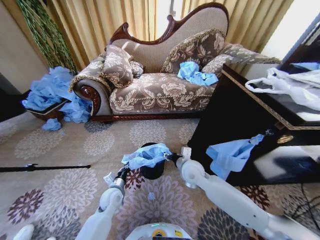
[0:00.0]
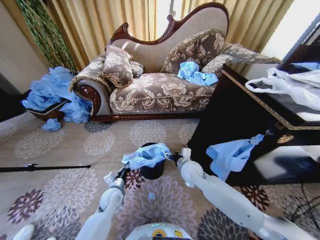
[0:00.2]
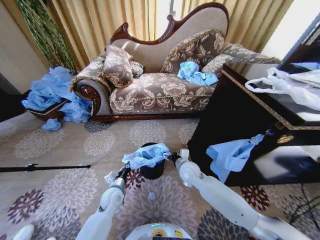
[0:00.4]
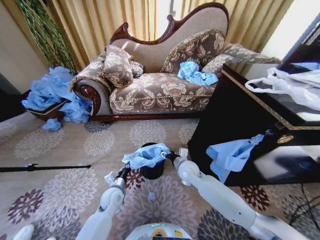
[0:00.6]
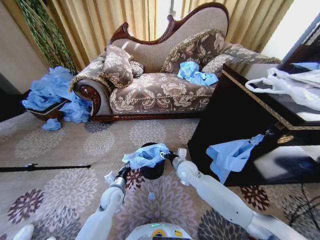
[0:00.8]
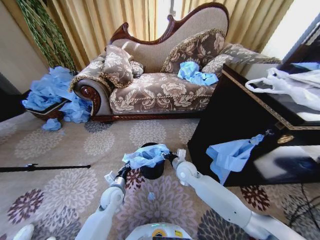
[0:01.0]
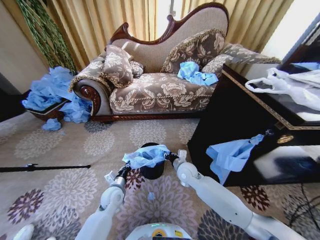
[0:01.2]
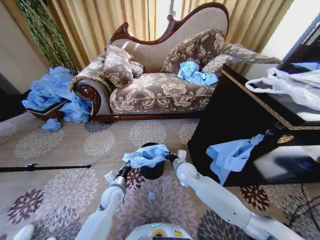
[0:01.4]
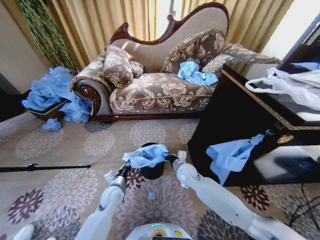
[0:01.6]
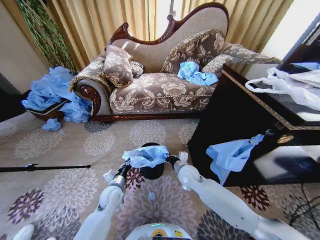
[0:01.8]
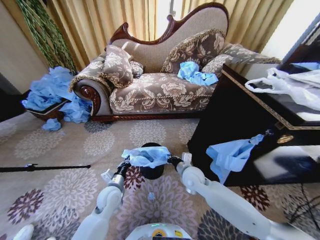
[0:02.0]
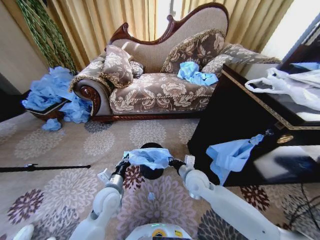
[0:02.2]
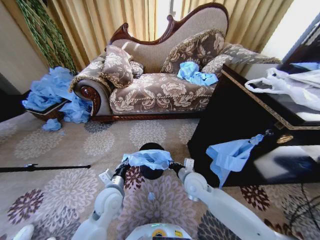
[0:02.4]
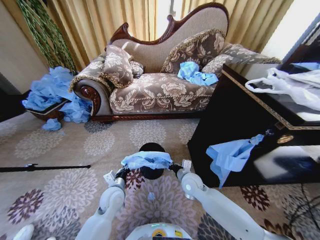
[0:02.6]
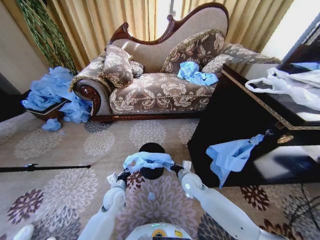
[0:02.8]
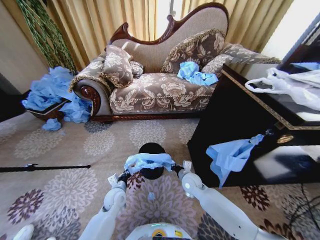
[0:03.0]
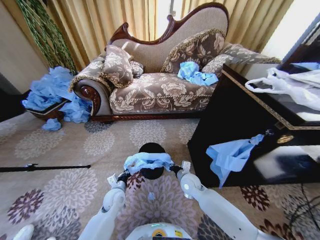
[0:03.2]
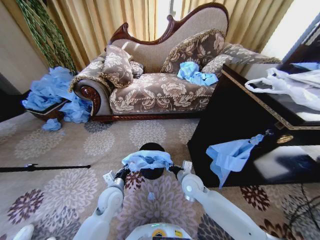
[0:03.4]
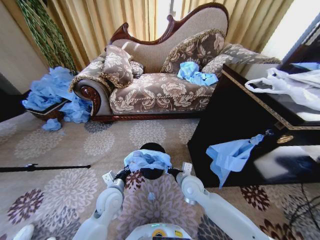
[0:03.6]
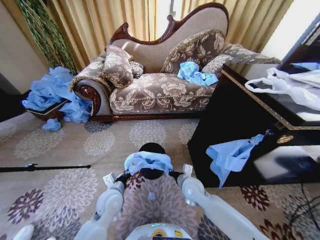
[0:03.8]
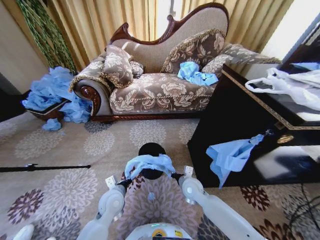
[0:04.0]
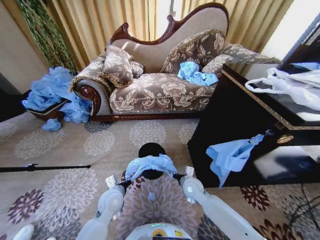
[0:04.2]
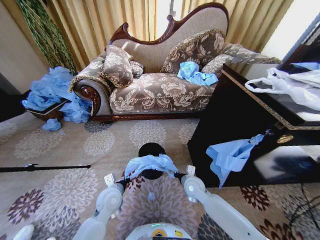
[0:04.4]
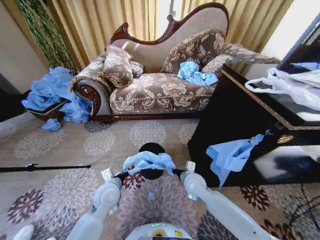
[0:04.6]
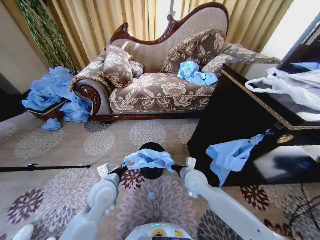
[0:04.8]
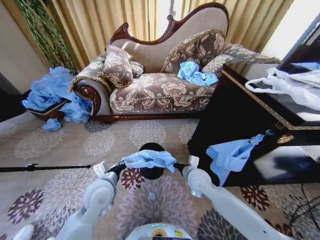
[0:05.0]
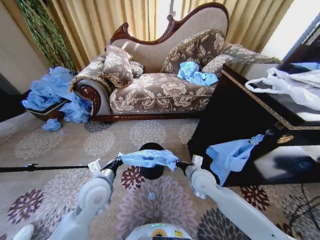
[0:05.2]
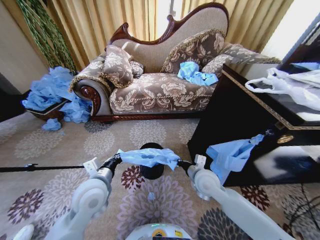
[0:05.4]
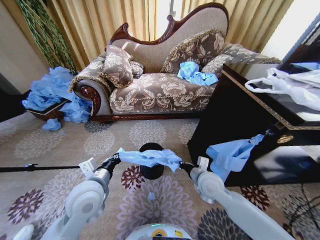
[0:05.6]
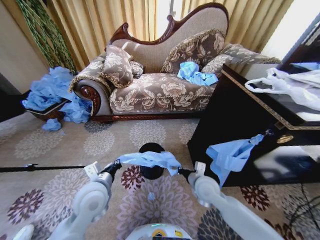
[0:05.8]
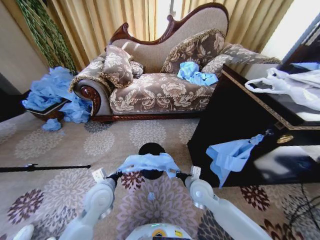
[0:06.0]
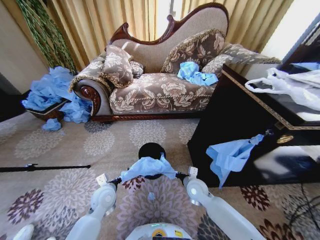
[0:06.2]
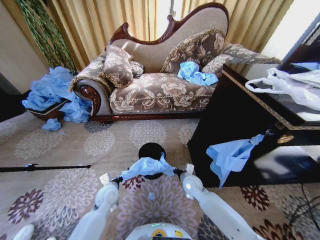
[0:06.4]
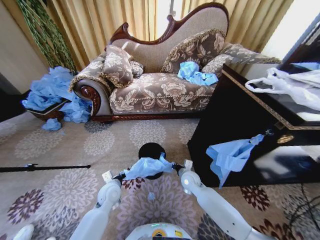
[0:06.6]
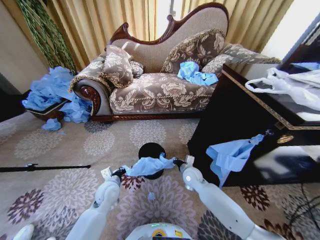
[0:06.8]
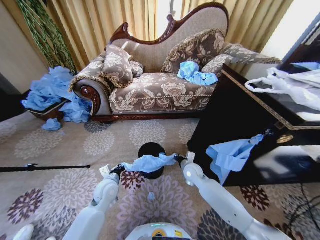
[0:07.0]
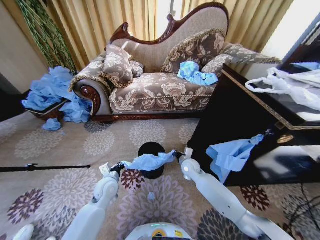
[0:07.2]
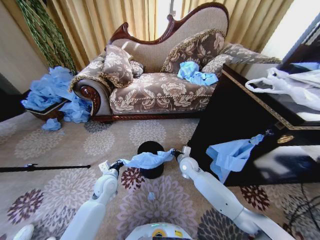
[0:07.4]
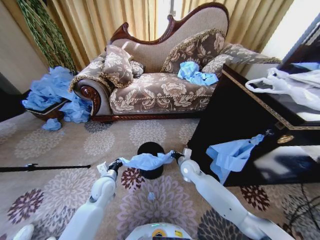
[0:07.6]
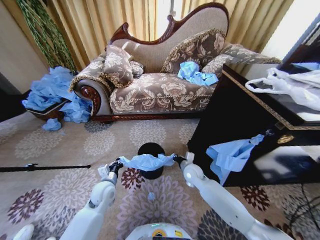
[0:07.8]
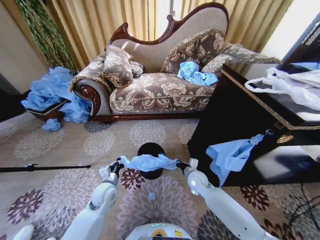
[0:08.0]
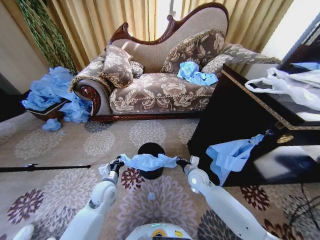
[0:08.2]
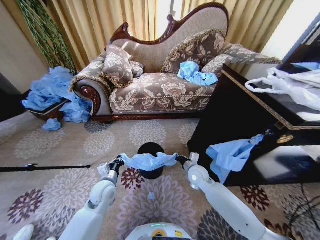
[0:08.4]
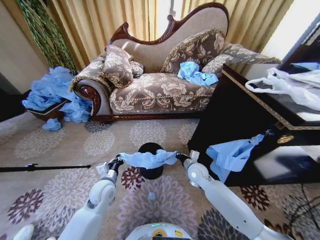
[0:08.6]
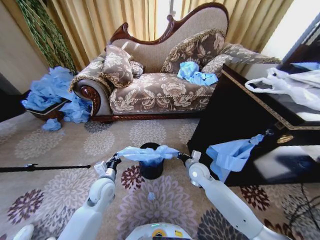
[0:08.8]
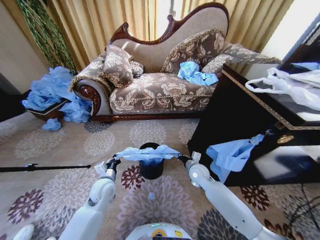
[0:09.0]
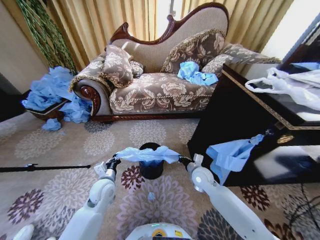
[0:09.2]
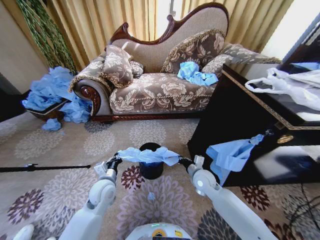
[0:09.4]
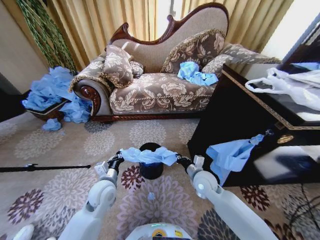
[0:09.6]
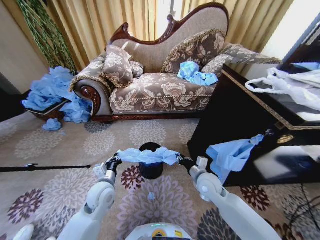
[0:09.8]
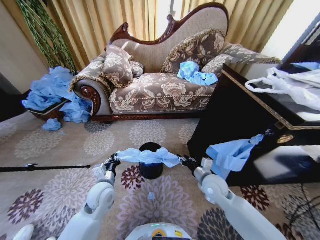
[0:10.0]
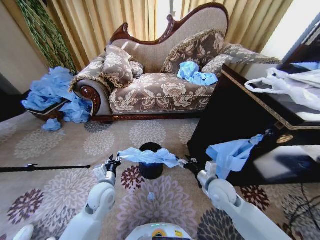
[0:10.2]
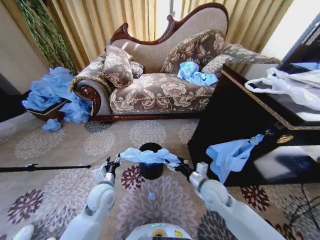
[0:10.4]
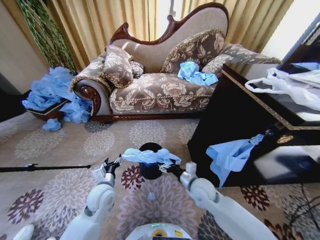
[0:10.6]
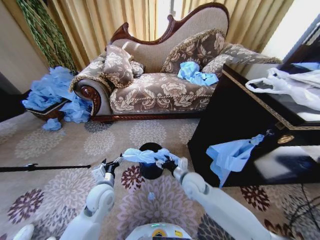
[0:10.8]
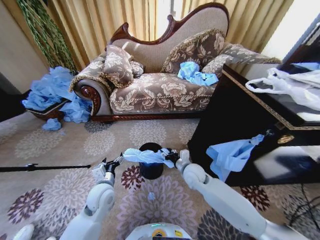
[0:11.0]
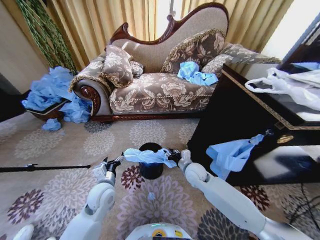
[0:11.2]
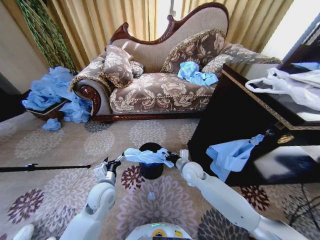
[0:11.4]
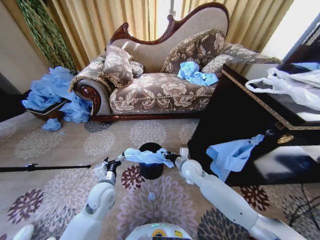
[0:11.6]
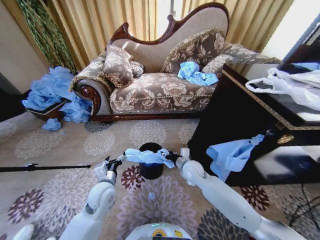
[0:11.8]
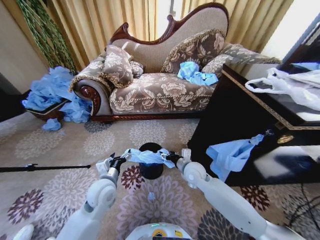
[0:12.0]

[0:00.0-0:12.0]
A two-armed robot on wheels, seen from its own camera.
Task of the whole recording: Place a garbage bag over the trash bin.
0:00.0 to 0:01.6: The right gripper heads downward, covering approximately 5 cm, and closes up.
0:01.6 to 0:03.0: The left gripper reaches about 10 cm upward, then returns; the right gripper shifts about 5 cm downward.
0:03.0 to 0:04.4: The left gripper goes approximately 10 cm upward.
0:04.4 to 0:06.0: The left gripper goes roughly 5 cm upward.
0:06.0 to 0:07.6: The left gripper moves downward and forward, about 10 cm. The right gripper is displaced forward by roughly 10 cm.
0:07.6 to 0:09.0: The right gripper shifts by approximately 5 cm.
0:09.0 to 0:10.4: The left gripper opens up. Meanwhile the right gripper travels backward and upward by some 10 cm, and opens.
0:10.4 to 0:12.0: The left gripper opens. The right gripper goes approximately 10 cm forward and to the left, and closes and opens again.

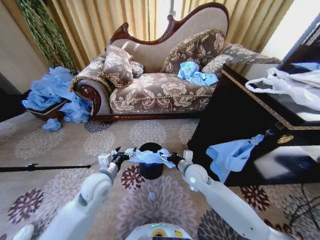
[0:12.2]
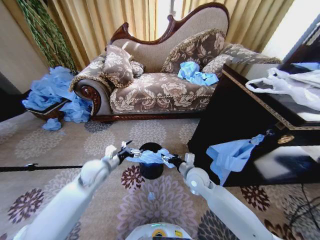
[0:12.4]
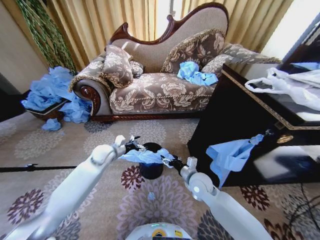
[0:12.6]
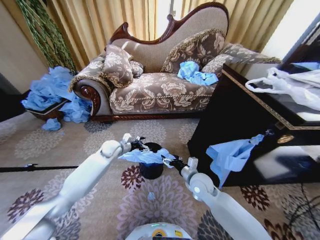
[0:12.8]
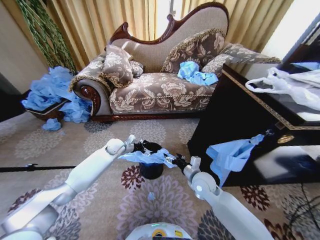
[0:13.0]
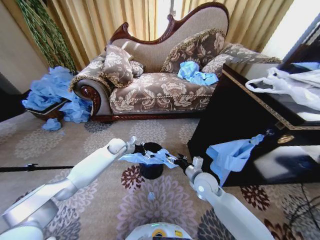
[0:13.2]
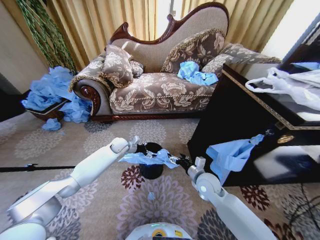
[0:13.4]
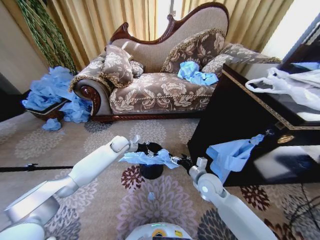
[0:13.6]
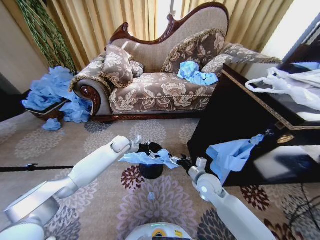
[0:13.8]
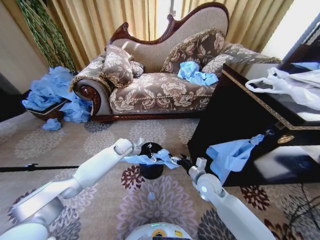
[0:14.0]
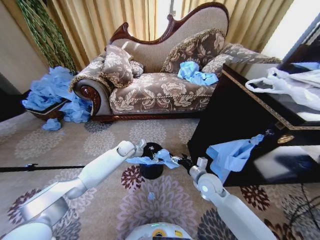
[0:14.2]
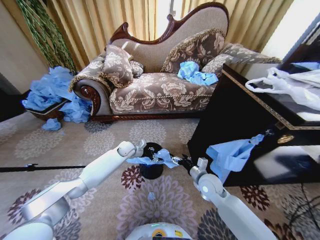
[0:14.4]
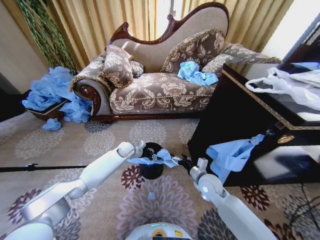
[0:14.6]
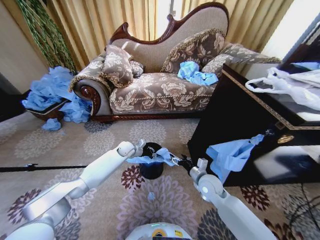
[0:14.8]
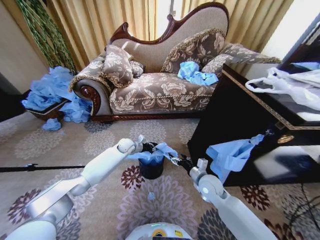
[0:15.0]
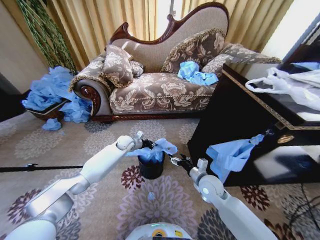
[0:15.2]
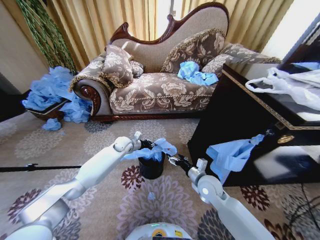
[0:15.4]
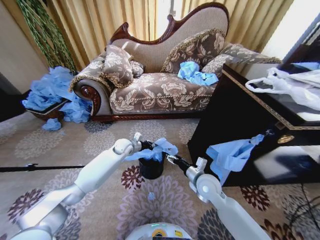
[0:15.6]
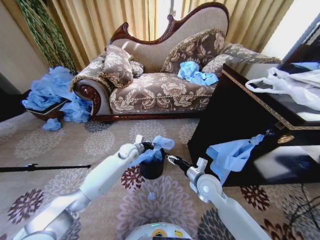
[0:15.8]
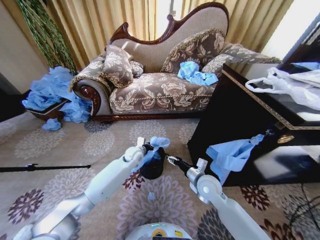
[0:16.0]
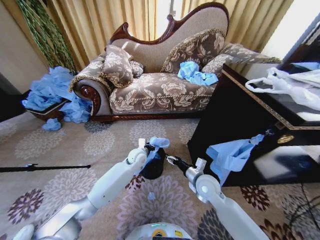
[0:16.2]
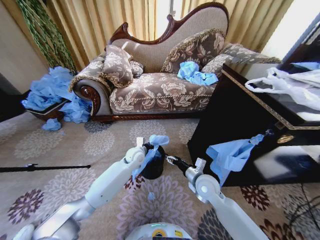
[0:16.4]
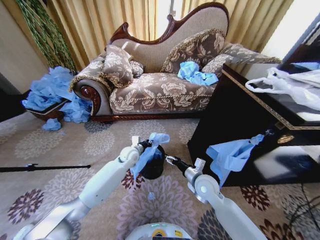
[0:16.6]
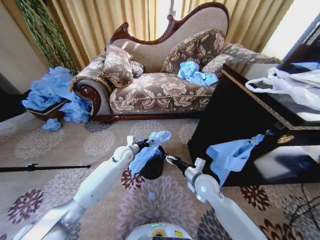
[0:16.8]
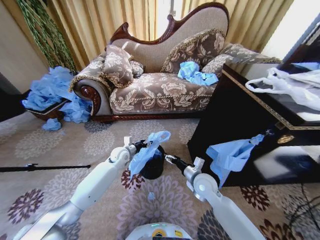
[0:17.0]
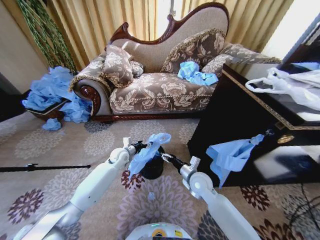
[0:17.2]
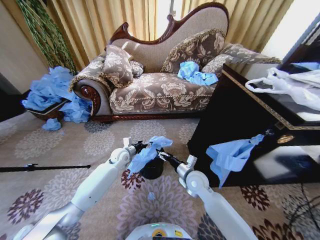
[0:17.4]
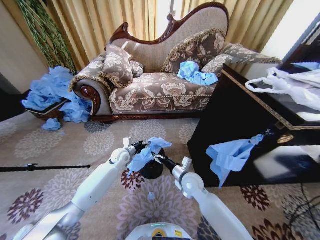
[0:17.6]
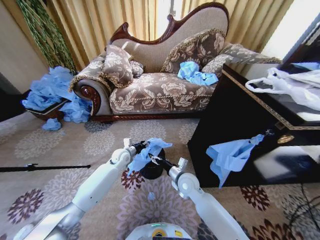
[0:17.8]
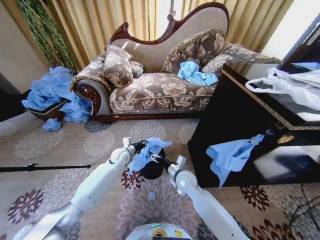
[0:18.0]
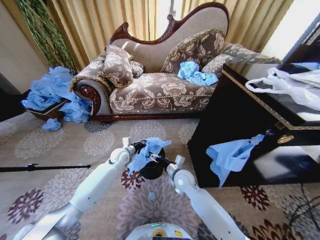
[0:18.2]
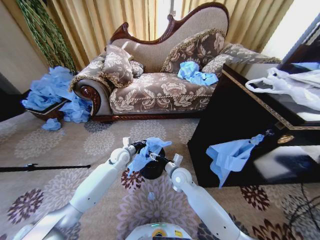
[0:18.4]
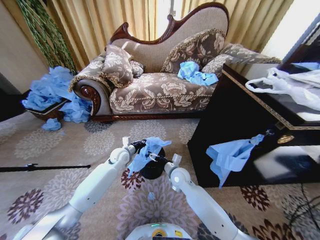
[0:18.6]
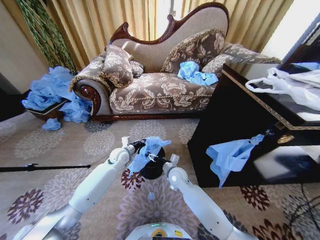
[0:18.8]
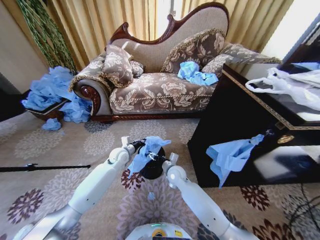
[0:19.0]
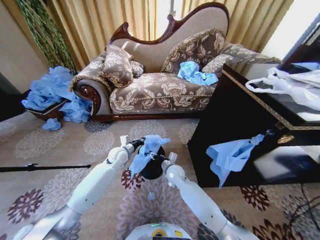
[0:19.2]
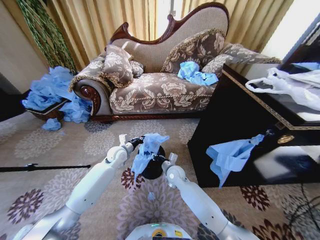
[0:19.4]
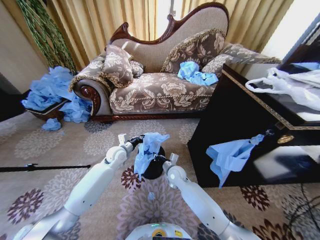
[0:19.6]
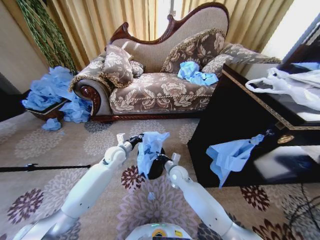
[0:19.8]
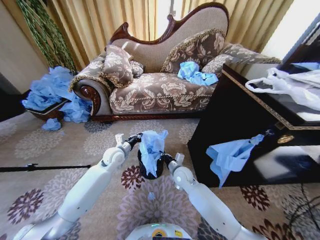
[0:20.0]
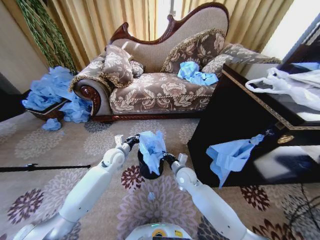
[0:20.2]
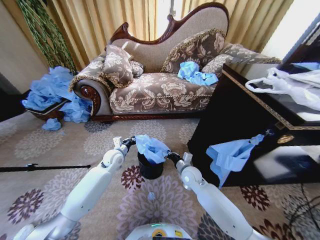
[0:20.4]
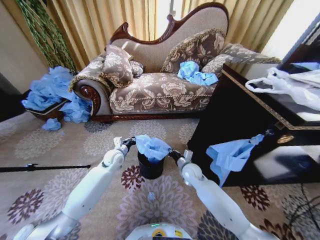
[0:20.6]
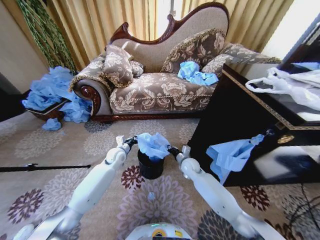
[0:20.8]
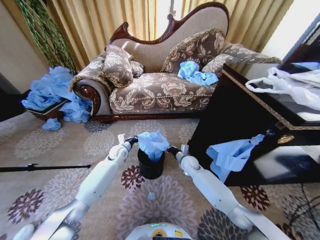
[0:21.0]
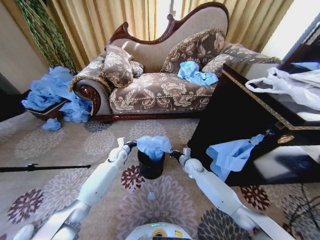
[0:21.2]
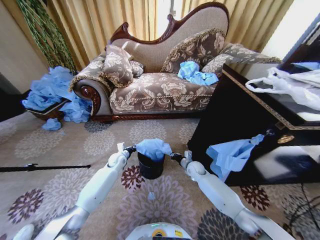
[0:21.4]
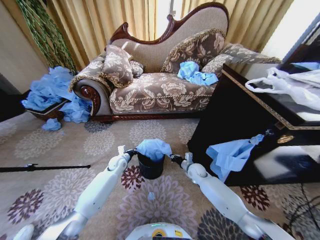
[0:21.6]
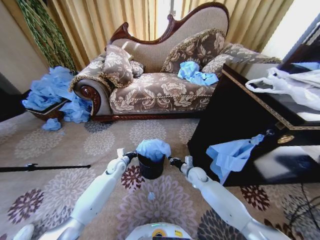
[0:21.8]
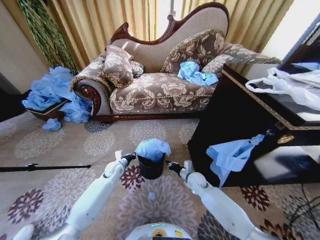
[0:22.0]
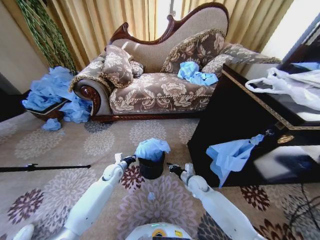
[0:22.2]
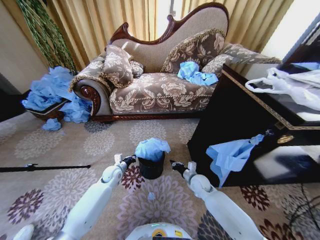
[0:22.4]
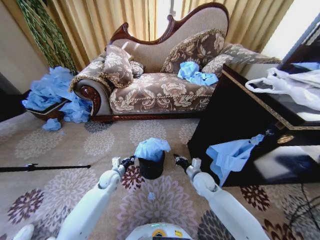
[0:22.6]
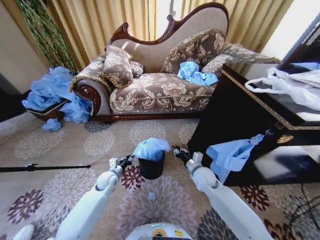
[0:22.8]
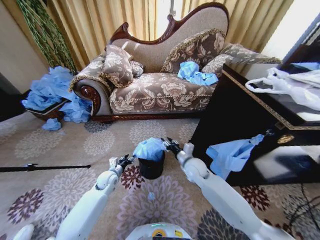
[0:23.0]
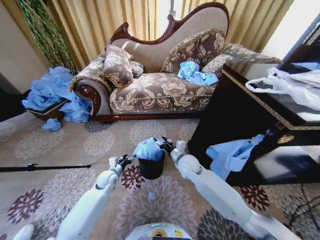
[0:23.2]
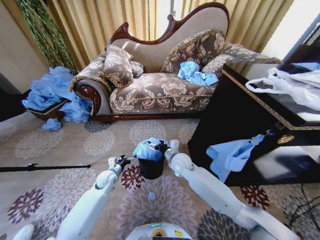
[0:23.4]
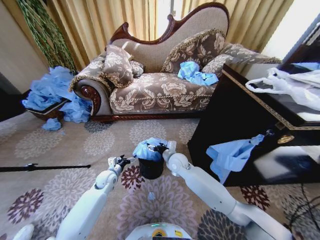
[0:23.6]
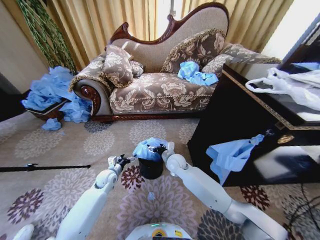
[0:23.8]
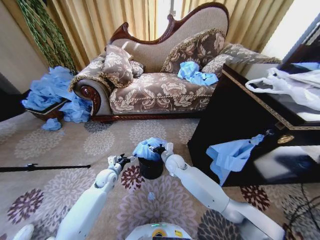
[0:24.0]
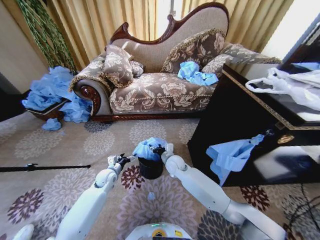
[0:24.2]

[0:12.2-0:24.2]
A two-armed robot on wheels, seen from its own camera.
Task of the whole recording: Place a garbage bag over the trash bin.
0:12.2 to 0:13.8: The right gripper travels to the right by roughly 5 cm. The left gripper travels forward by roughly 25 cm.
0:13.8 to 0:15.2: The left gripper closes its fingers.
0:15.2 to 0:16.6: The left gripper shifts some 10 cm backward.
0:16.6 to 0:18.2: The left gripper goes approximately 5 cm to the left, and opens, then closes again, while the right gripper moves to the left, approximately 10 cm.
0:18.2 to 0:19.8: The right gripper closes up.
0:19.8 to 0:21.2: The right gripper moves to the right and forward, some 10 cm. The left gripper shifts roughly 10 cm downward and forward.
0:21.2 to 0:22.6: Both grippers travel together backward, some 10 cm.
0:22.6 to 0:24.2: The right gripper goes about 15 cm to the left and forward, and opens up. The left gripper opens.
